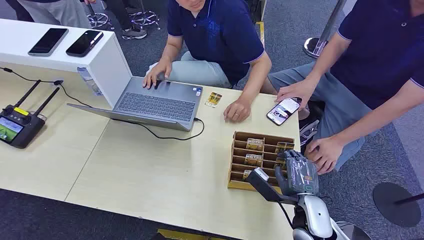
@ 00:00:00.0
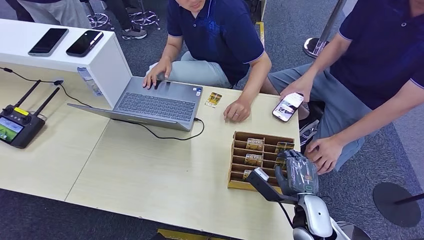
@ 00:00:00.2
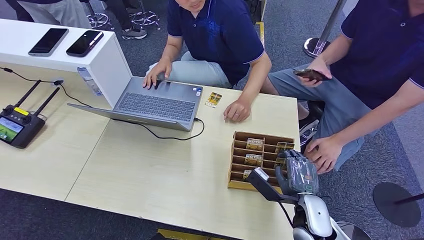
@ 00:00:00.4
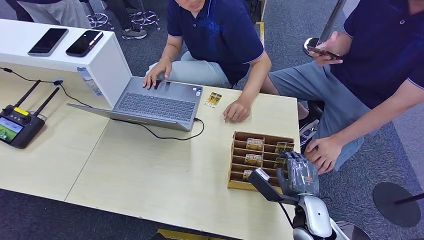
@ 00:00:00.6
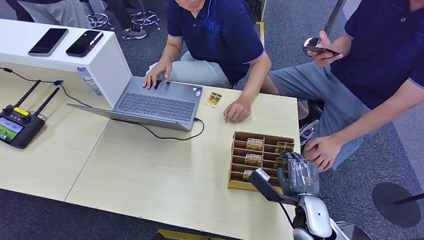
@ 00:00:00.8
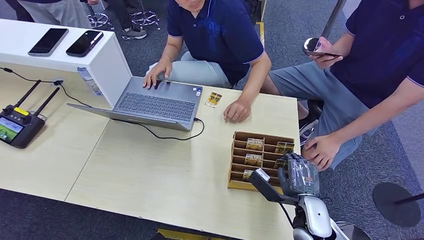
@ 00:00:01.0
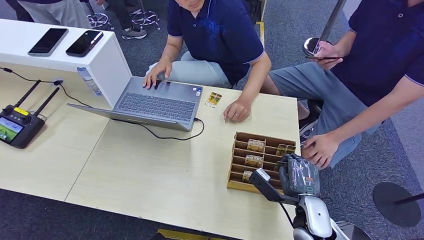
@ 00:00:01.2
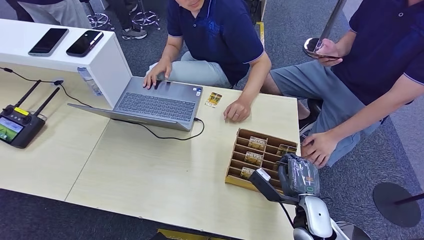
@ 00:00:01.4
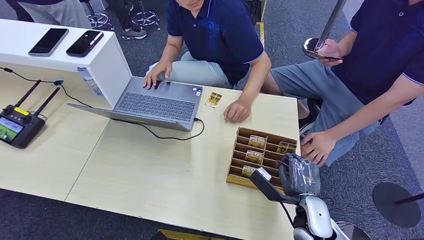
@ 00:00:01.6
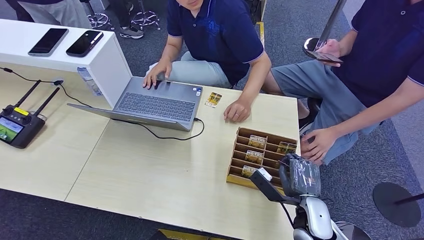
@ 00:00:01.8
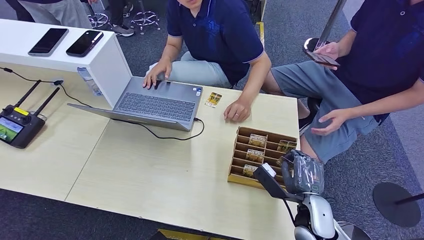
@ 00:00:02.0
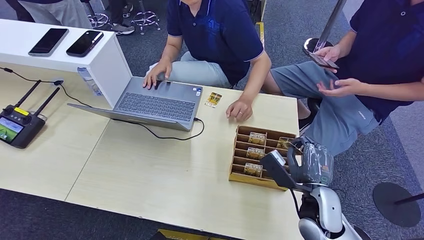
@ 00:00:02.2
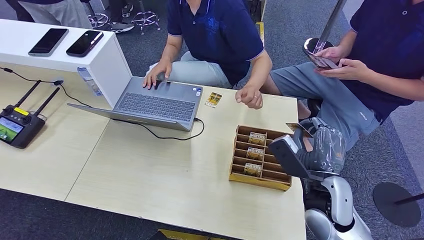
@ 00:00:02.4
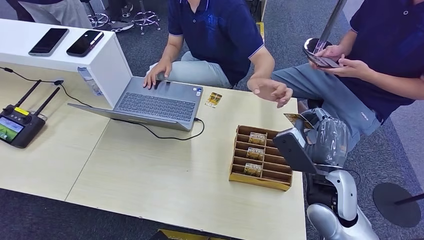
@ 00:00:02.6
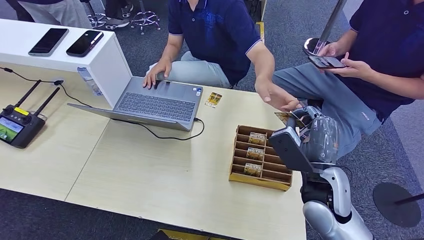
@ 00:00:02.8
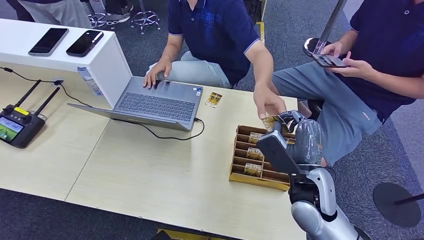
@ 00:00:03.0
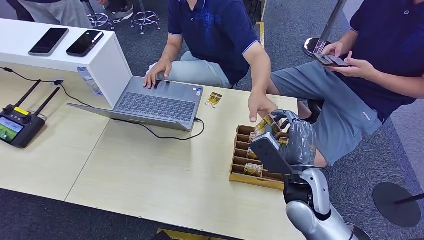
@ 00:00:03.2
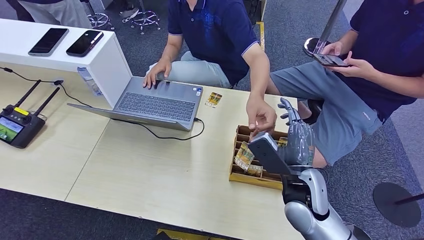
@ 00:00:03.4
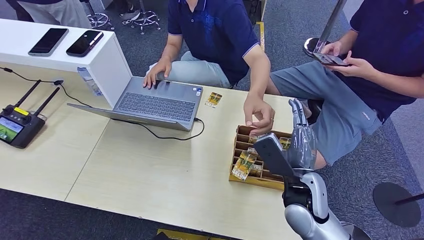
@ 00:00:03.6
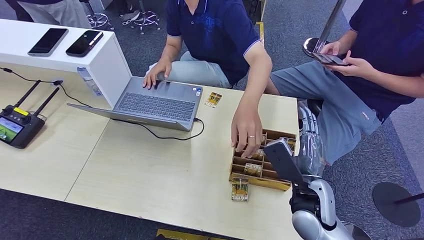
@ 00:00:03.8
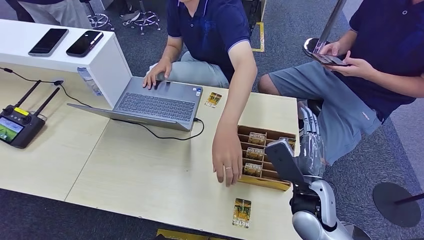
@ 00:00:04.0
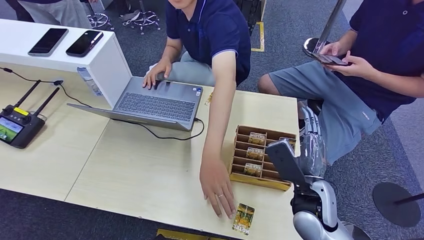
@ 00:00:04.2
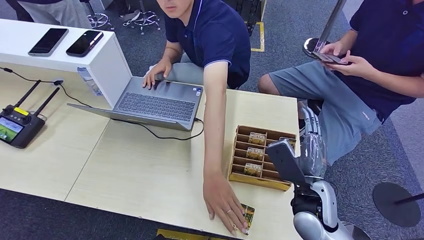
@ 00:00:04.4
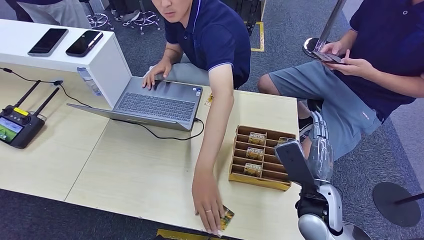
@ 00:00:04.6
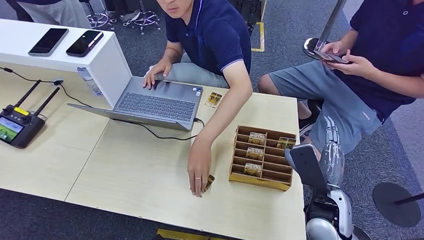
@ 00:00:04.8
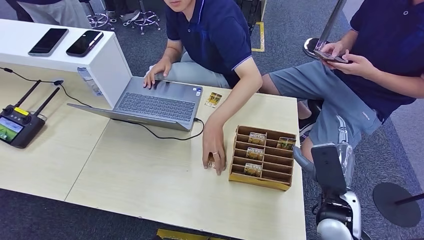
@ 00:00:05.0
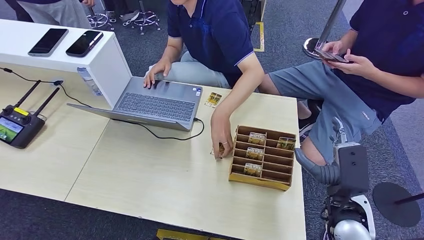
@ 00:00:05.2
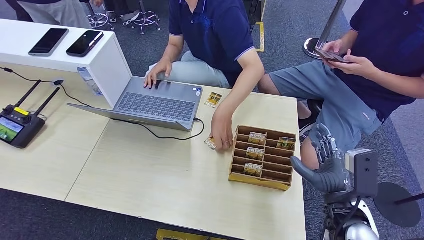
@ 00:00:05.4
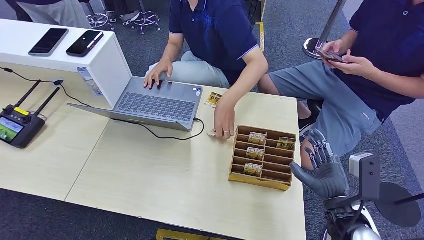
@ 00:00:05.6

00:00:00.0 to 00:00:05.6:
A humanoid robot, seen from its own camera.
Step, 00:00:00.0 to 00:00:02.4: Pick up the key card from the card box.
Step, 00:00:02.8 to 00:00:05.6: Hand the key card to the target.
00:00:01.4 to 00:00:02.8: The right hand goes approximately 10 cm upward.
00:00:02.8 to 00:00:04.2: The hands move only a little.
00:00:04.2 to 00:00:05.6: The right hand moves to the right, some 5 cm.

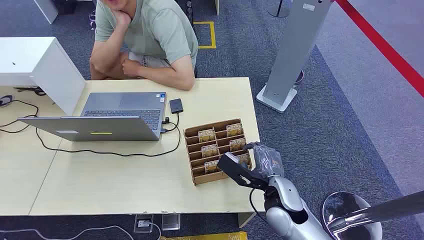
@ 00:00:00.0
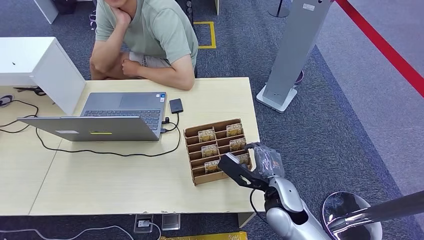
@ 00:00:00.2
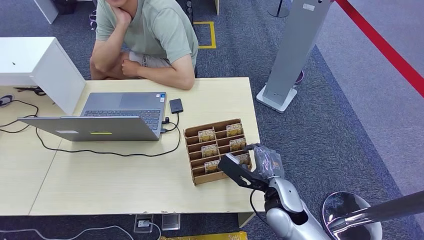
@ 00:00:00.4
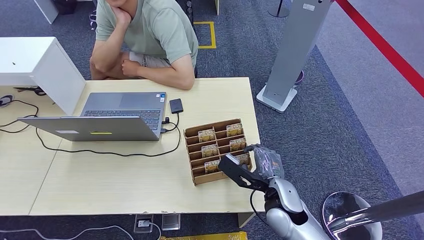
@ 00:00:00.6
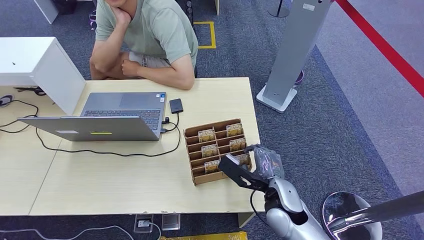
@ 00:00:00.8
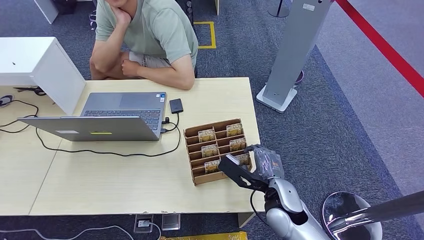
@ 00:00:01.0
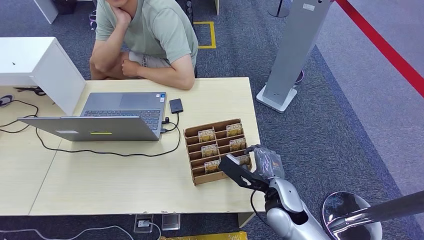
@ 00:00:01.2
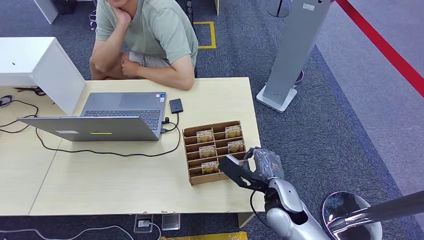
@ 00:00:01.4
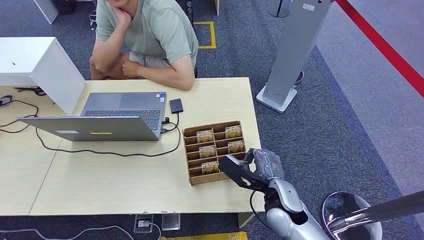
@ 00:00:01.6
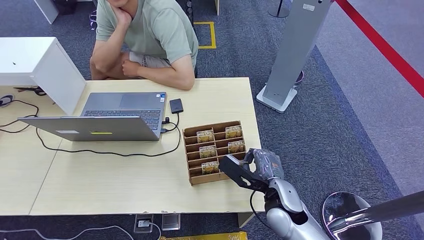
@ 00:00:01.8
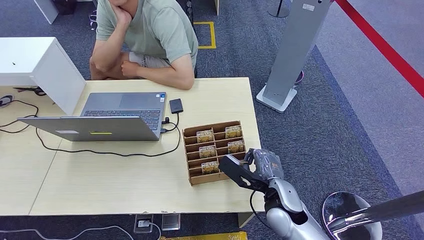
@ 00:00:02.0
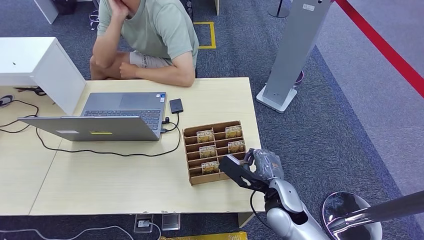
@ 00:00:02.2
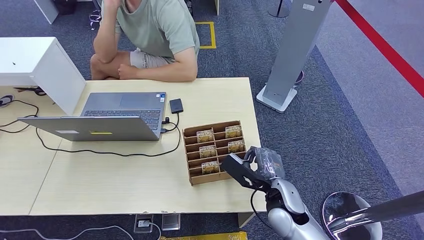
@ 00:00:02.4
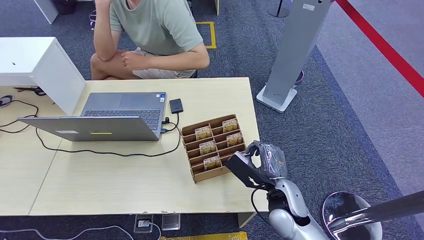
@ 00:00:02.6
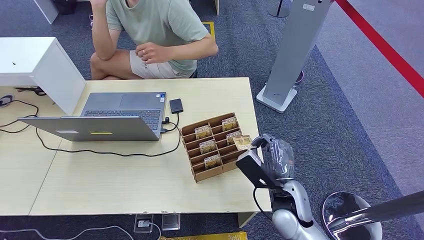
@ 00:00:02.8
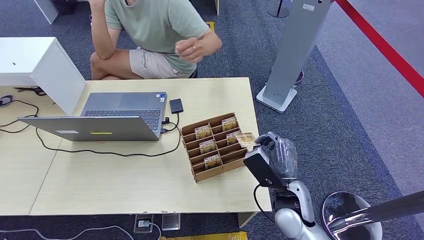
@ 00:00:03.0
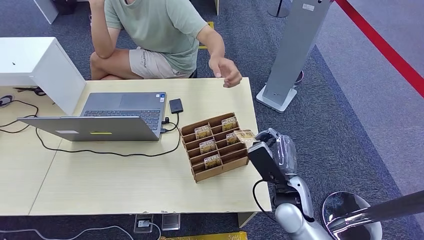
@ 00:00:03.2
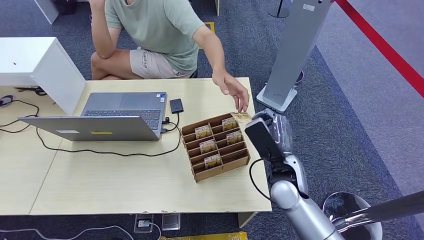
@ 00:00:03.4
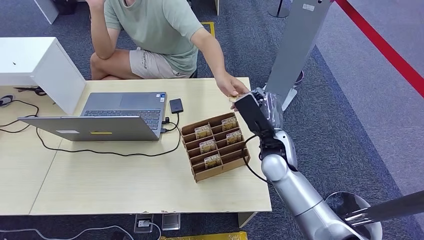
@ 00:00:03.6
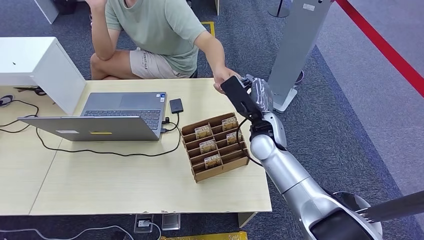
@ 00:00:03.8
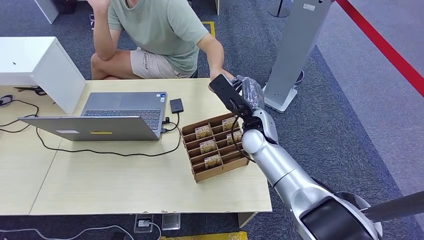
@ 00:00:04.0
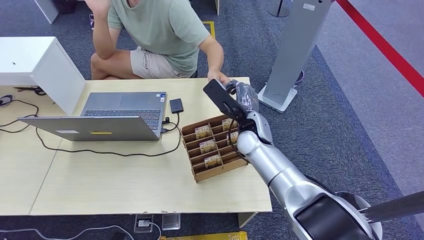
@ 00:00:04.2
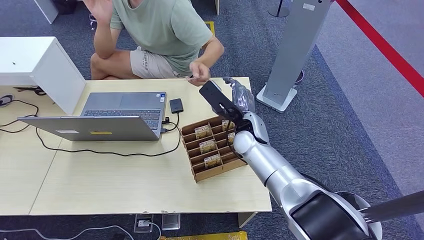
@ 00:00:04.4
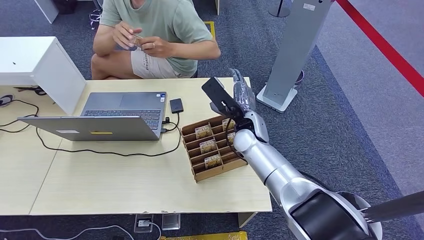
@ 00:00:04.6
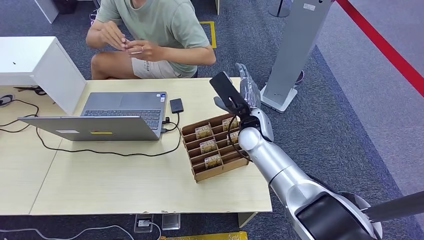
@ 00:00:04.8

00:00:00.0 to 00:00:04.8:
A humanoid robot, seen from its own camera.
Step, 00:00:00.0 to 00:00:02.8: Pick up the key card from the card box.
Step, 00:00:03.8 to 00:00:04.8: Hand the key card to the target.
00:00:03.2 to 00:00:04.8: The right hand shifts some 20 cm forward, to the left and upward.
